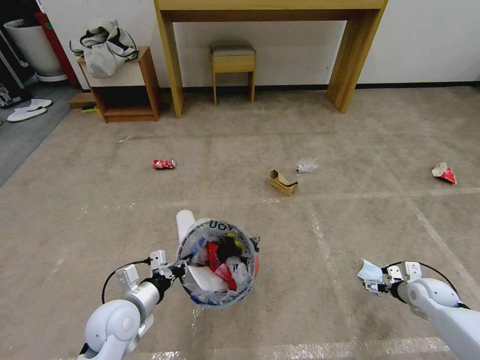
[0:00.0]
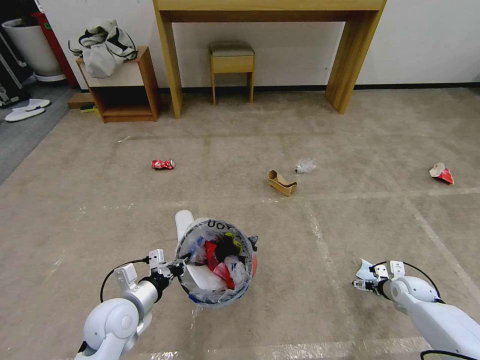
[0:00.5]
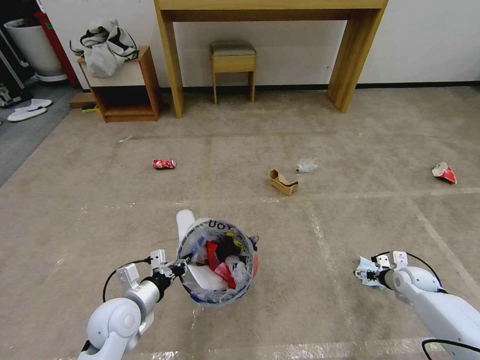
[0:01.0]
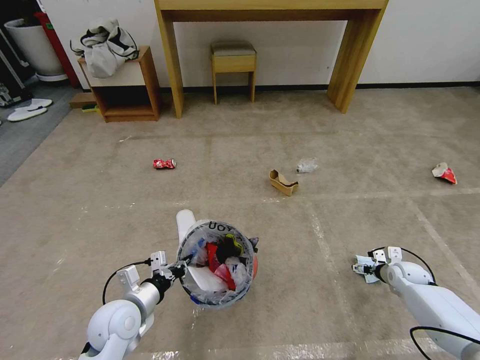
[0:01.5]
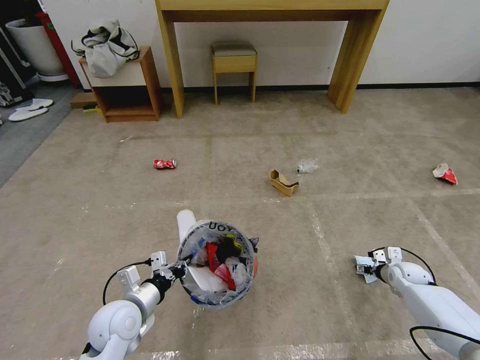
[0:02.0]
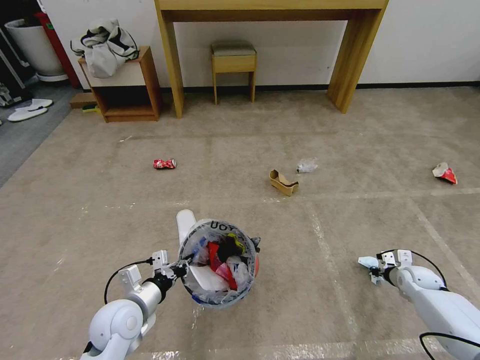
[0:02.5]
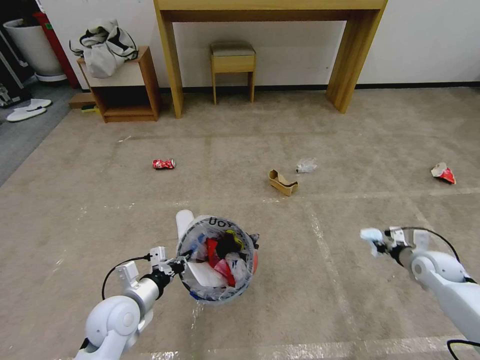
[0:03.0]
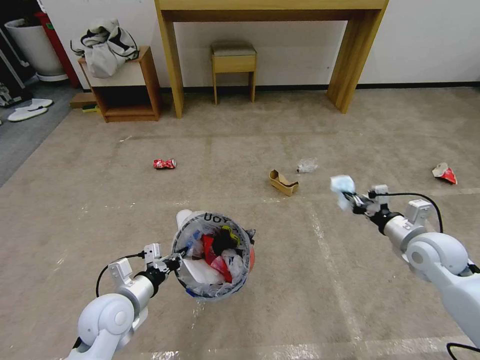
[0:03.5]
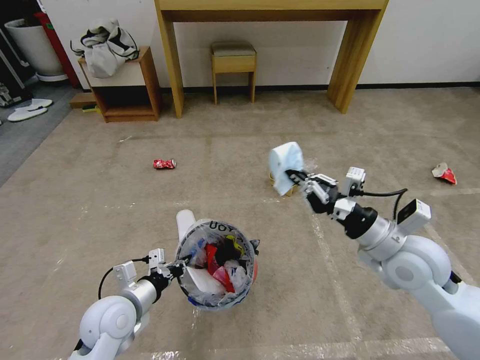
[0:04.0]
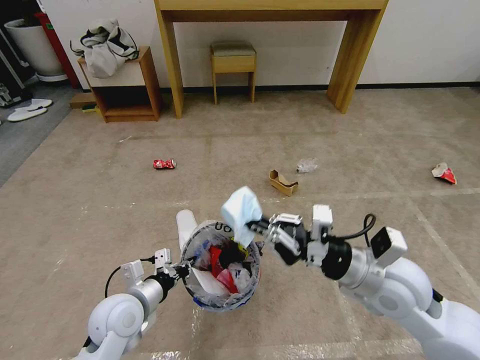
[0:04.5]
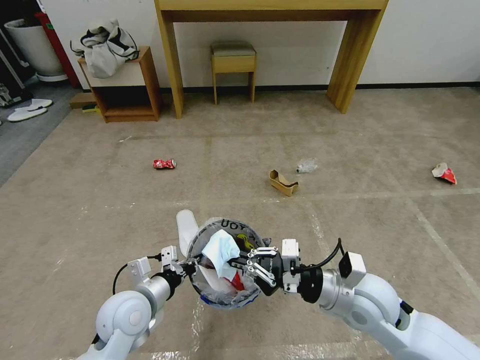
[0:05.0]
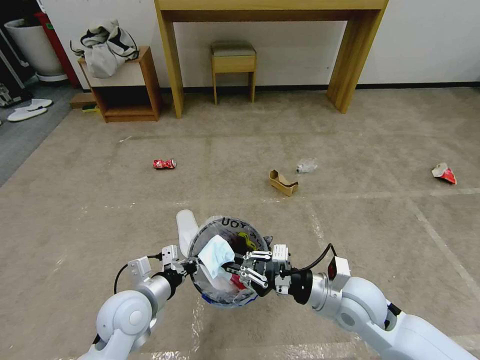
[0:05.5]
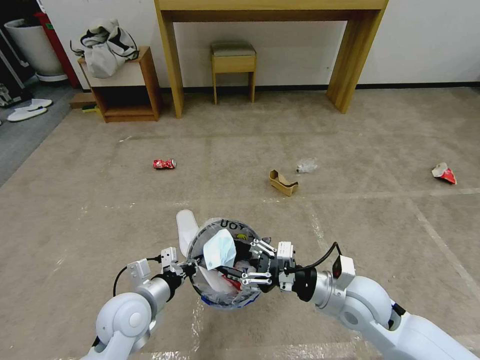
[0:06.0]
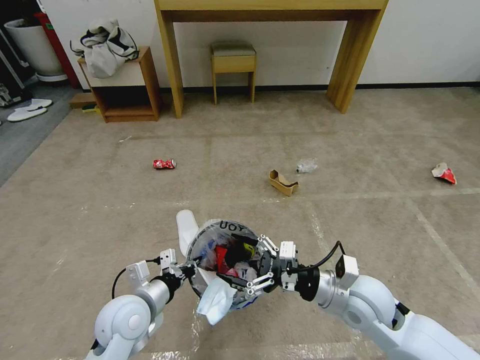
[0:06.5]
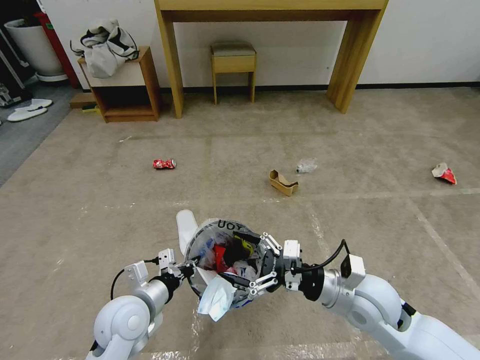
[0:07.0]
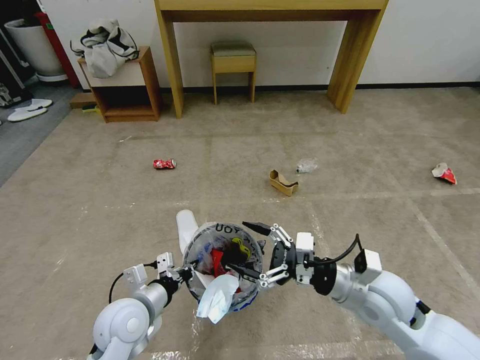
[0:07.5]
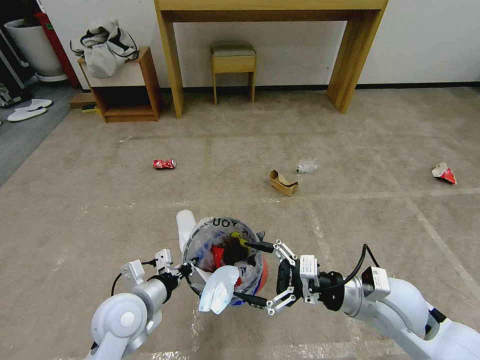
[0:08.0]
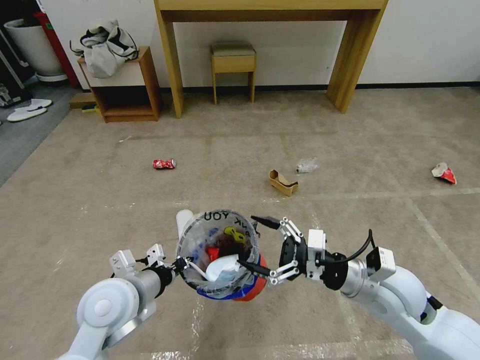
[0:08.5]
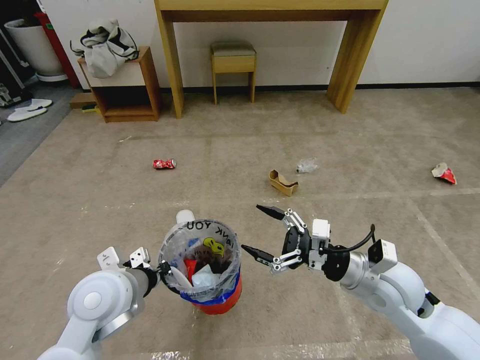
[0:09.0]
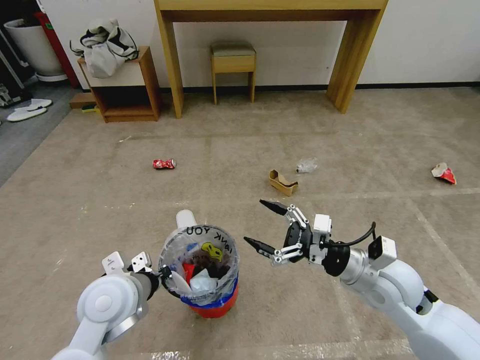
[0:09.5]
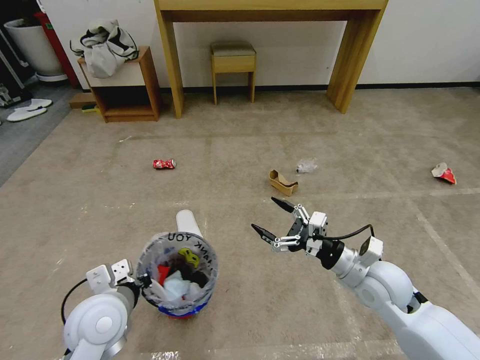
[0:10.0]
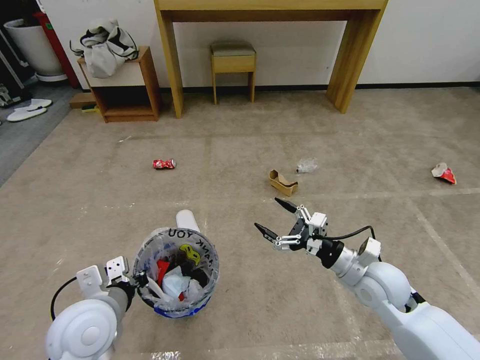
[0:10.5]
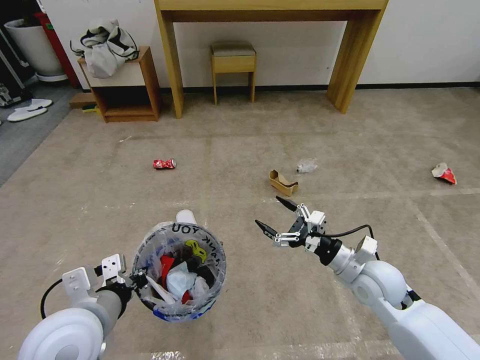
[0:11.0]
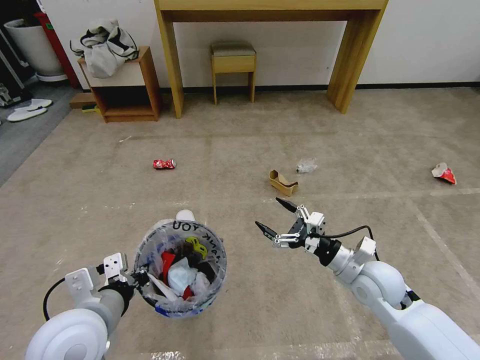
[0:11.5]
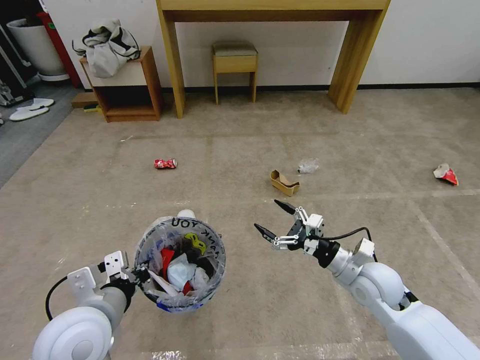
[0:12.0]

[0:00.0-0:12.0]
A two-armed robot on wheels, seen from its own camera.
Task of the whole recording: Pick up the trash bin and place the garbage on the floor into it.
0.0 to 2.0 s: The right gripper shifts approximately 5 cm forward, and closes.
2.0 to 4.0 s: The right gripper is displaced upward and to the left by roughly 35 cm, and closes up.
4.0 to 6.0 s: The right gripper travels downward and to the left by roughly 10 cm, and opens its fingers.
6.0 to 8.0 s: The right gripper moves roughly 5 cm.
8.0 to 10.0 s: The right gripper ends up approximately 5 cm from where it was.
10.0 to 12.0 s: The left gripper changes place by some 5 cm.

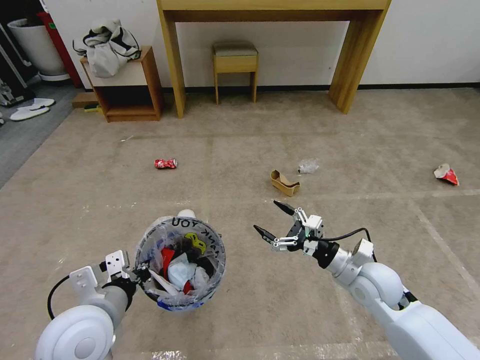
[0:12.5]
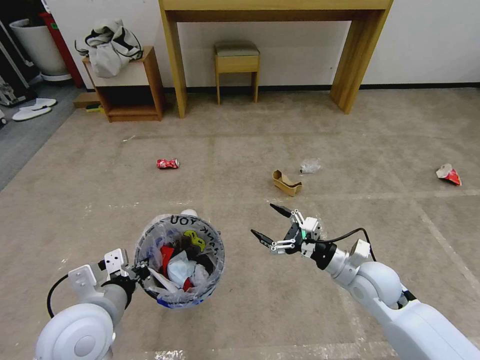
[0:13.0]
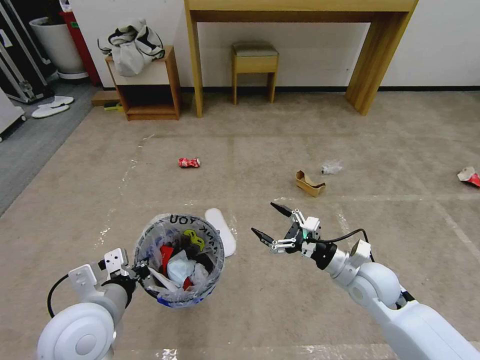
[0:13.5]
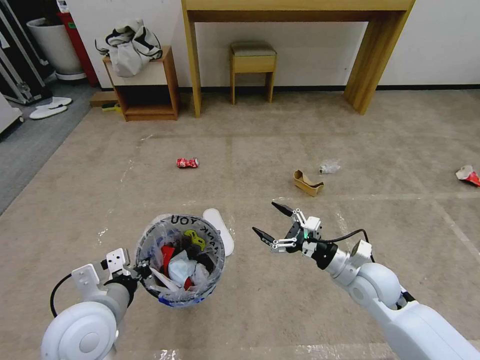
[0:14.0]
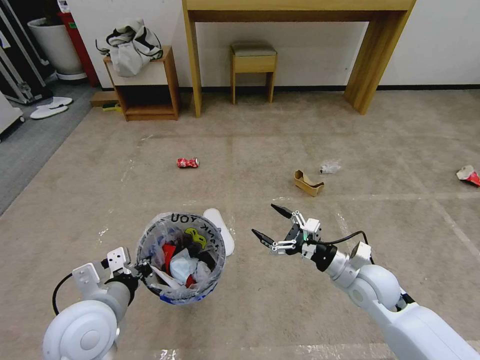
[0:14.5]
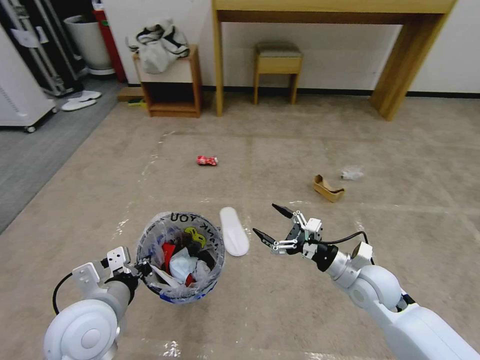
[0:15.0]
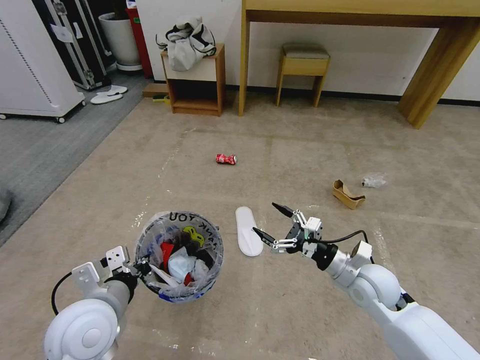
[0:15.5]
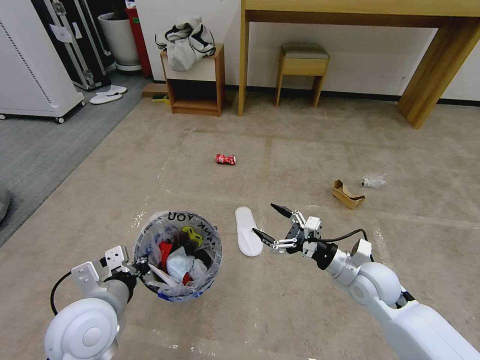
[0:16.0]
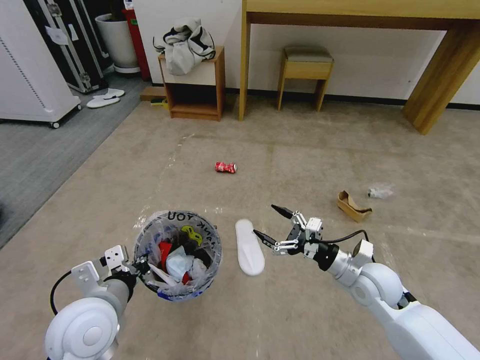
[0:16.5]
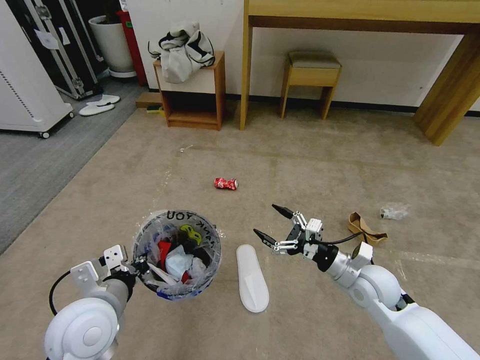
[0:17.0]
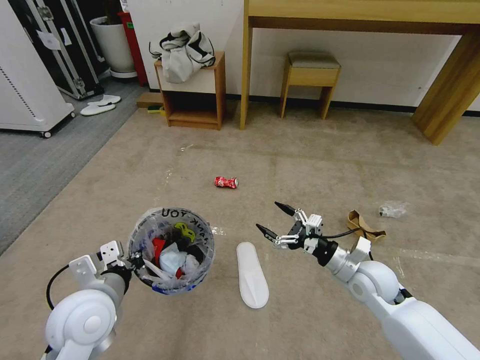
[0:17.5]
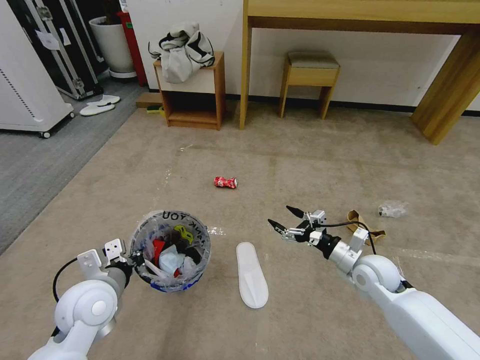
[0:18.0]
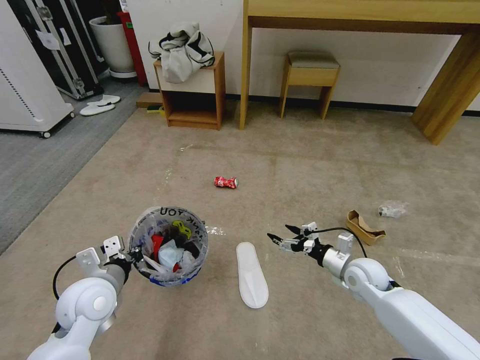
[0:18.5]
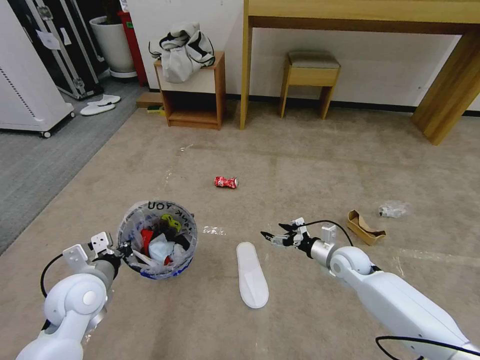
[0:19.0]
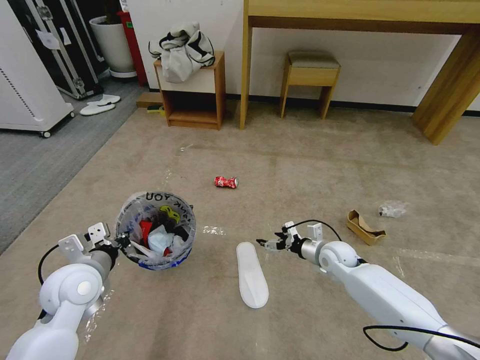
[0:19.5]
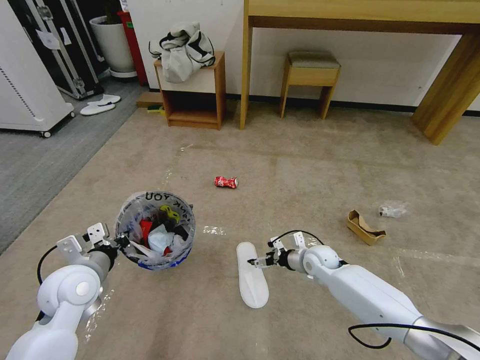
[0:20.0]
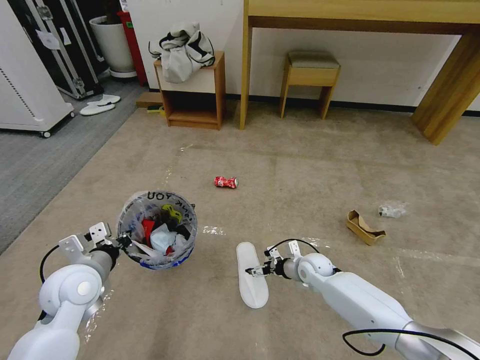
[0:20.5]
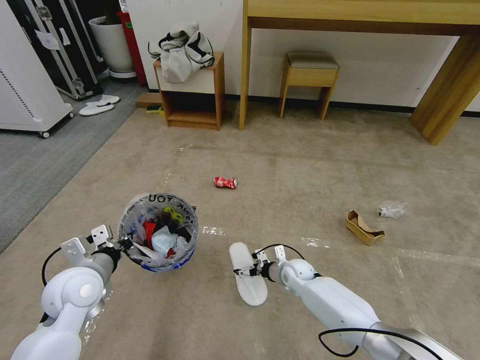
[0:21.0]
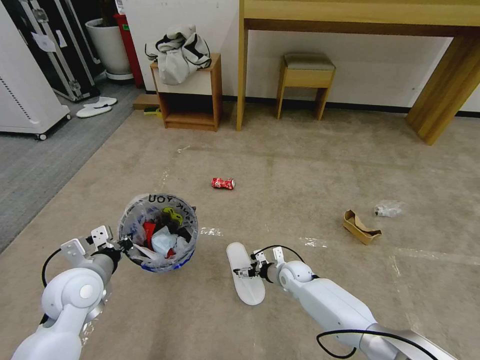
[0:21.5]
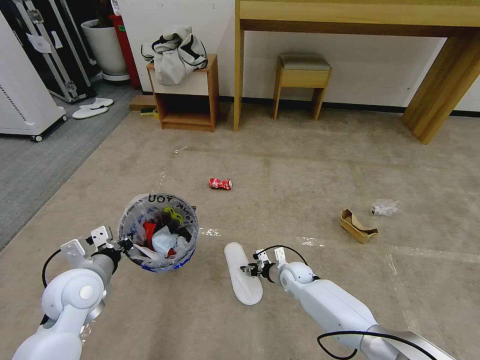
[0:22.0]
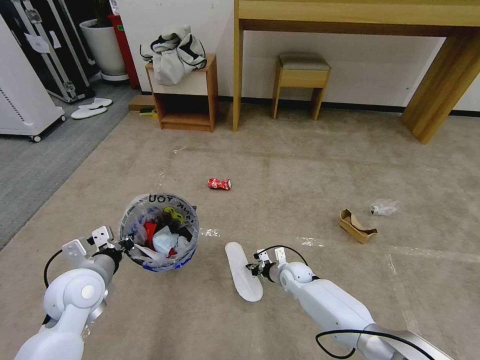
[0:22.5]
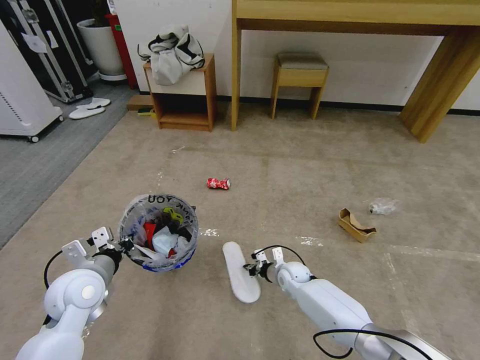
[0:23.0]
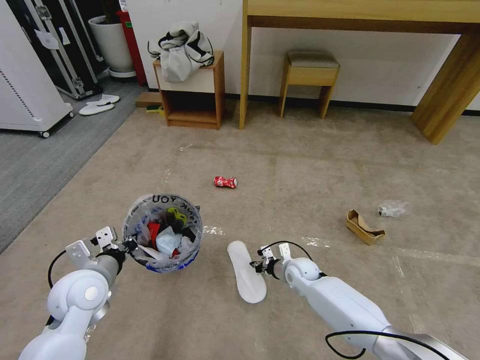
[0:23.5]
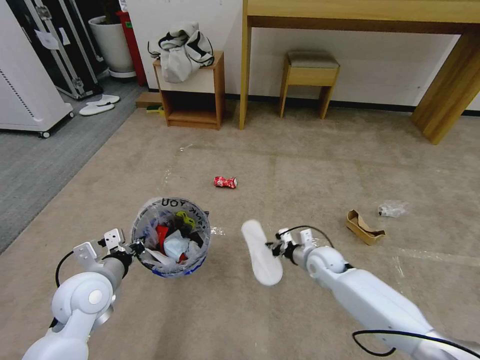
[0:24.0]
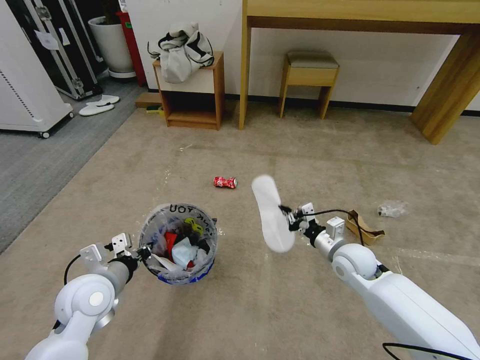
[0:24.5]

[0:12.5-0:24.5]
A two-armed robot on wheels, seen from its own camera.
Task of the whole recording: Pick up the trash bin and place the garbage on the floor into it.
16.5 to 18.5 s: The right gripper heads downward, covering some 5 cm. The left gripper shifts roughly 5 cm forward.
18.5 to 20.5 s: The right gripper goes about 15 cm to the left, downward and forward.
20.5 to 22.5 s: The right gripper shifts roughly 5 cm downward, and closes its fingers.
22.5 to 24.5 s: The right gripper travels upward and to the right by roughly 20 cm.

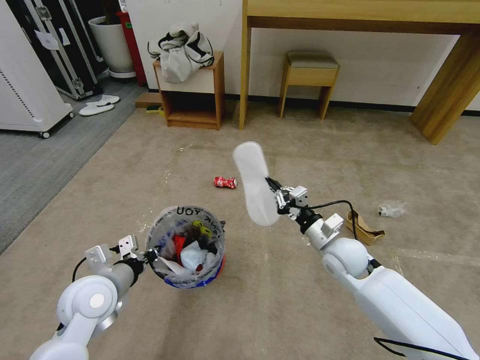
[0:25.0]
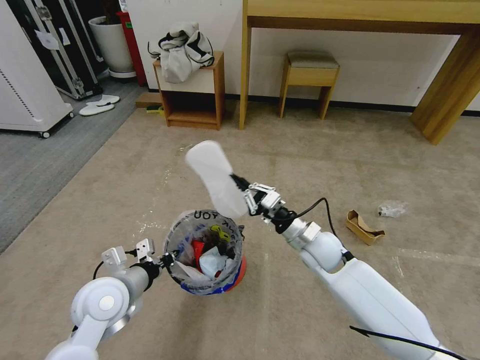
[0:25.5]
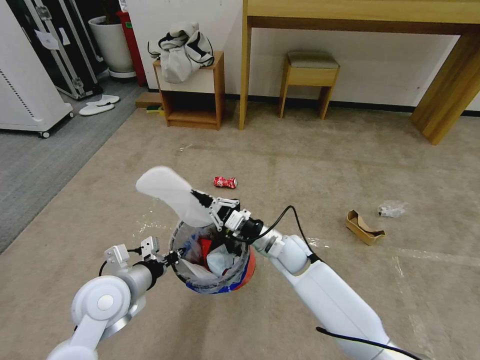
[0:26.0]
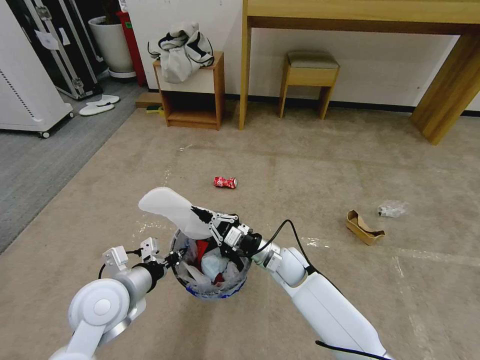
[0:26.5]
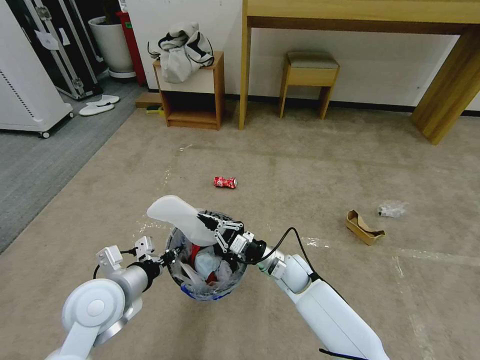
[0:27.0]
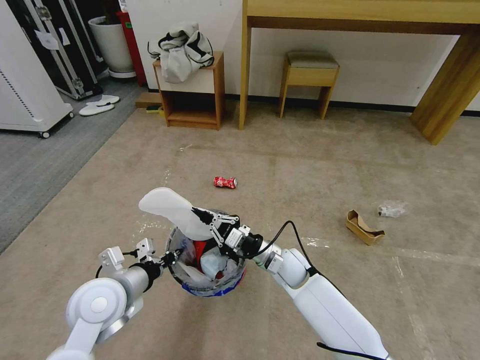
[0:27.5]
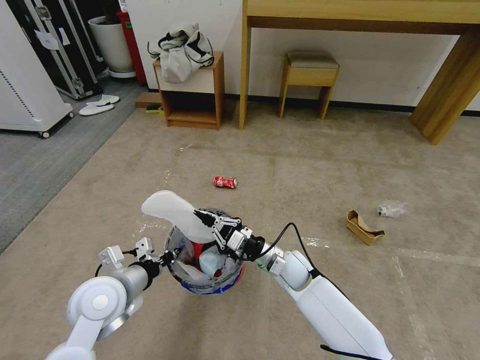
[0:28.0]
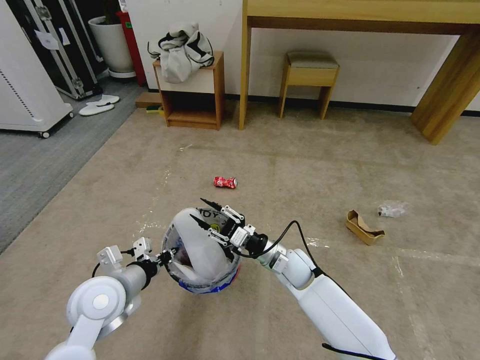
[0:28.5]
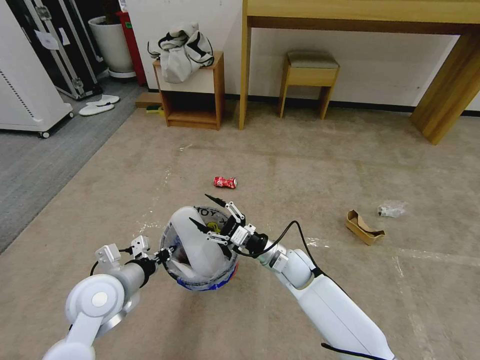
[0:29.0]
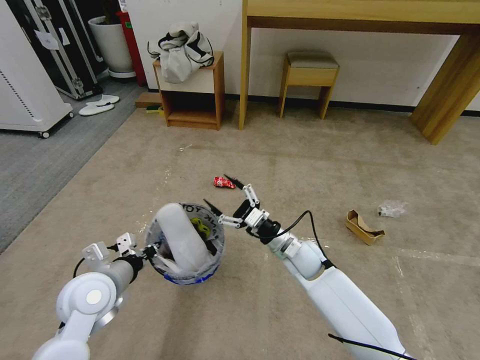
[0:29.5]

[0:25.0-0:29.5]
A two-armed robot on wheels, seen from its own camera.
Task of the whole recording: Pick up the trash bin and place the garbage on the floor into it.
25.0 to 27.0 s: The right gripper travels to the left and downward by approximately 15 cm.
27.0 to 29.5 s: The right gripper shifts by about 5 cm, and opens up.
